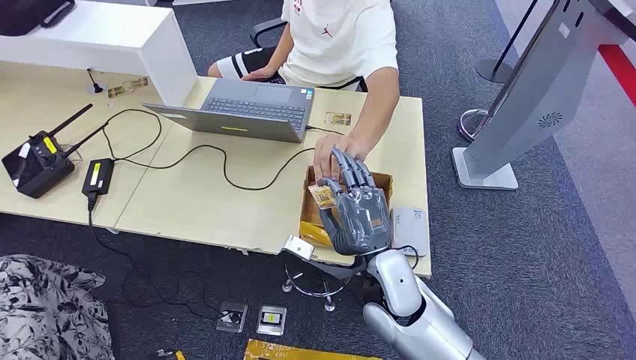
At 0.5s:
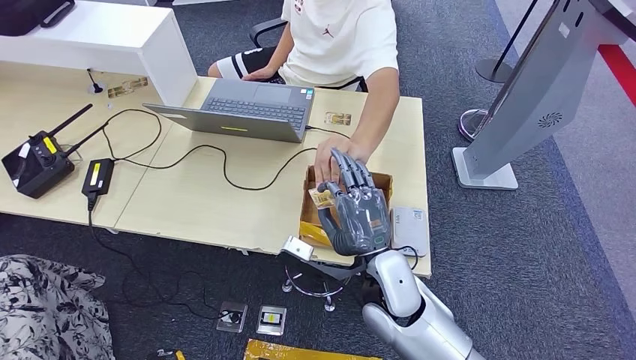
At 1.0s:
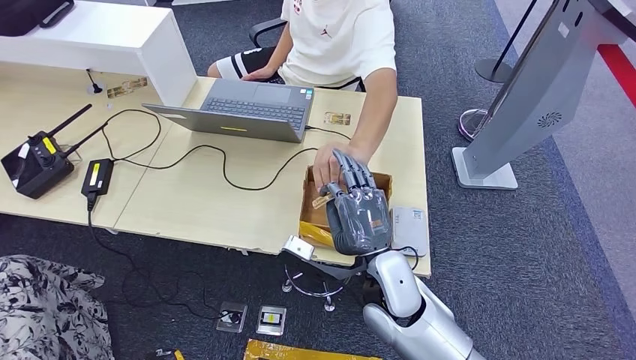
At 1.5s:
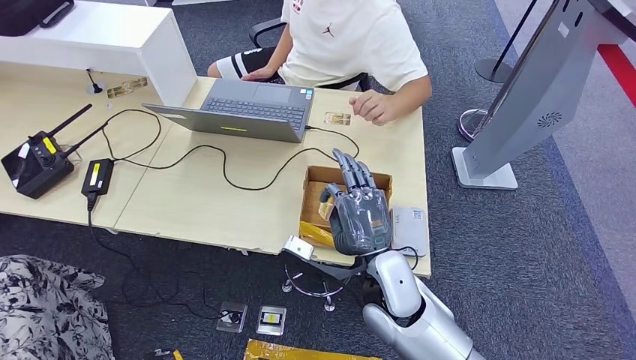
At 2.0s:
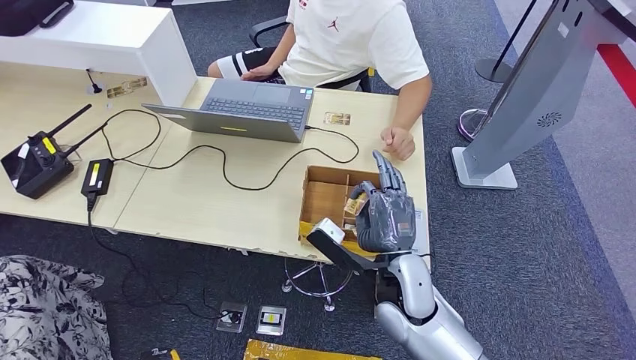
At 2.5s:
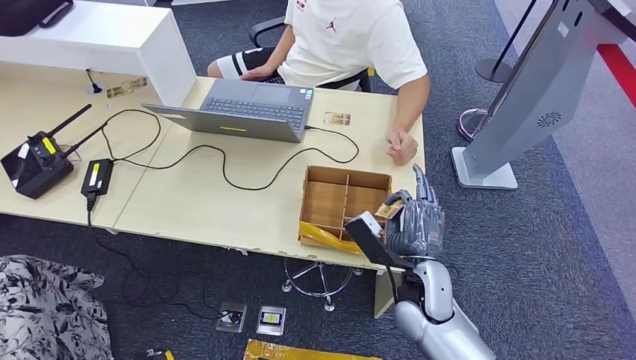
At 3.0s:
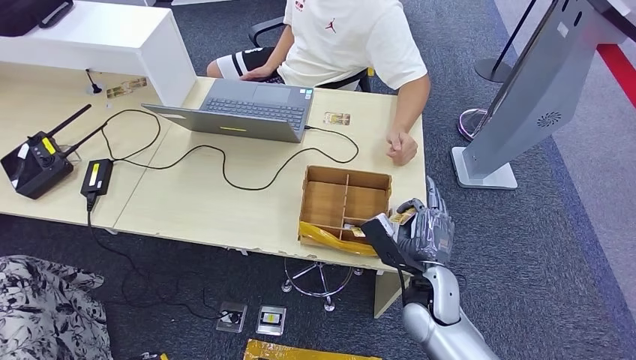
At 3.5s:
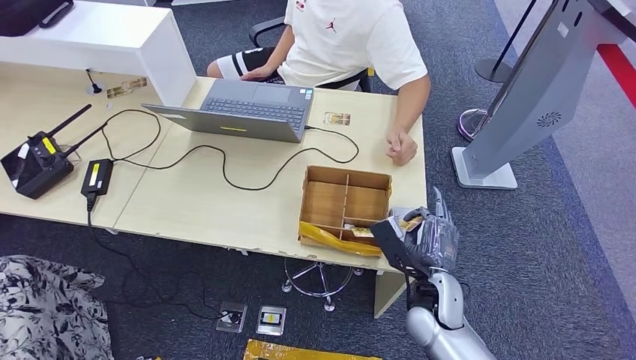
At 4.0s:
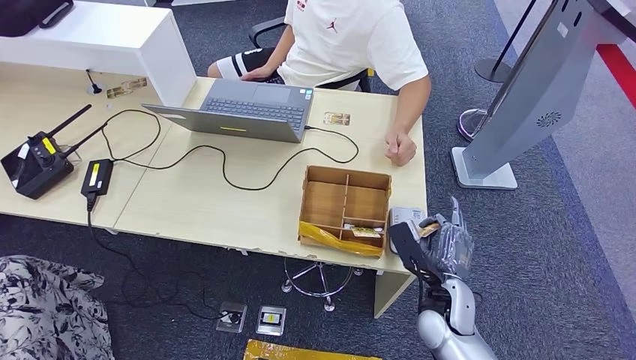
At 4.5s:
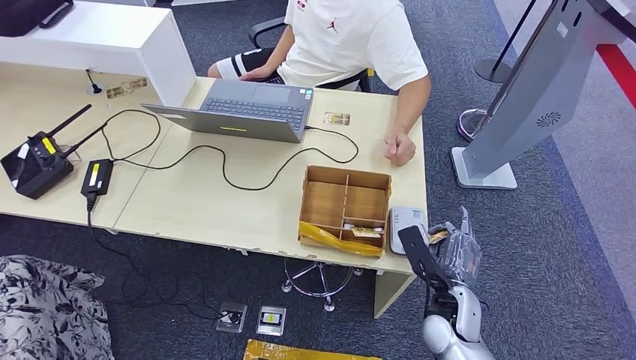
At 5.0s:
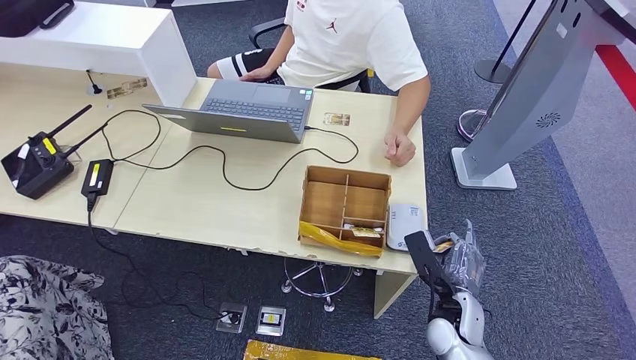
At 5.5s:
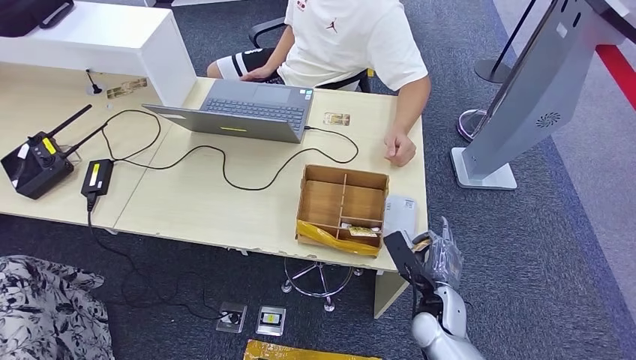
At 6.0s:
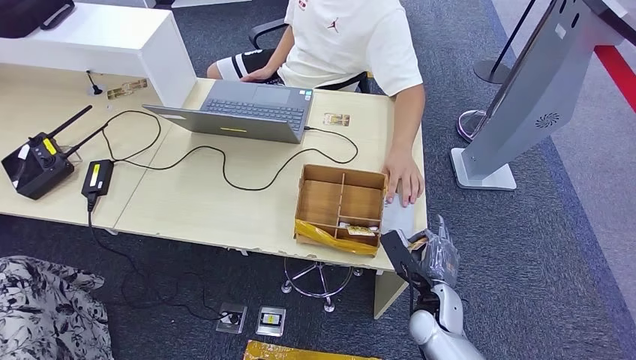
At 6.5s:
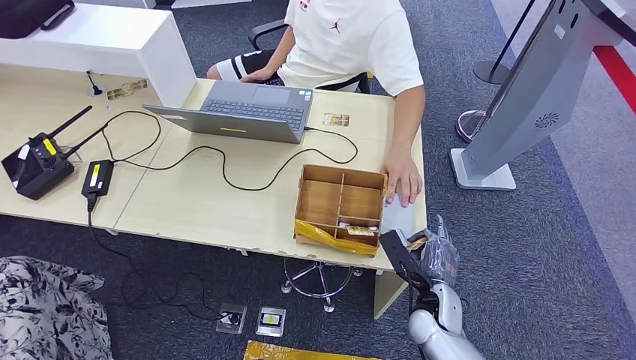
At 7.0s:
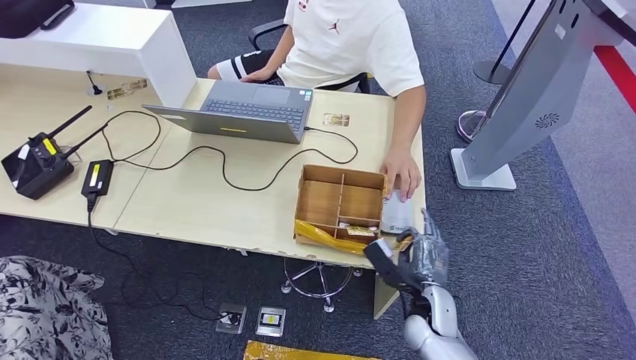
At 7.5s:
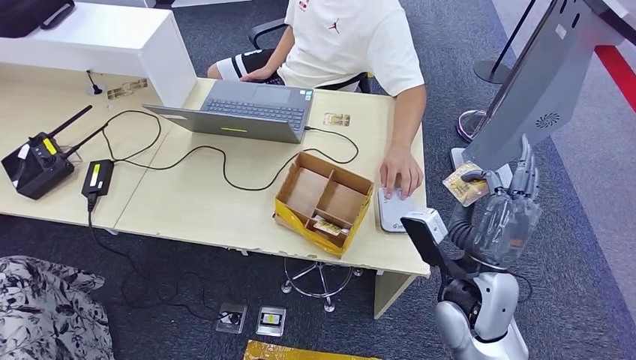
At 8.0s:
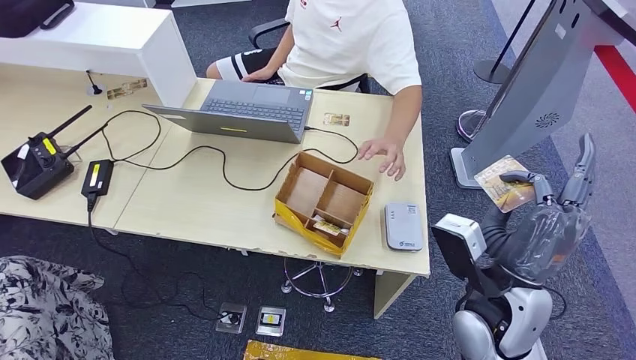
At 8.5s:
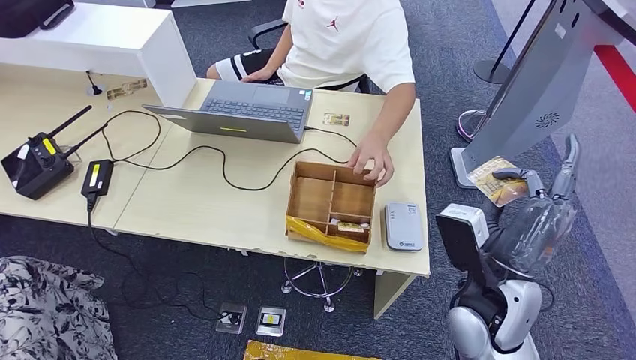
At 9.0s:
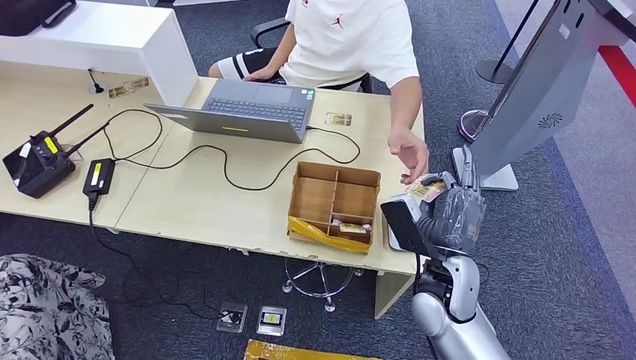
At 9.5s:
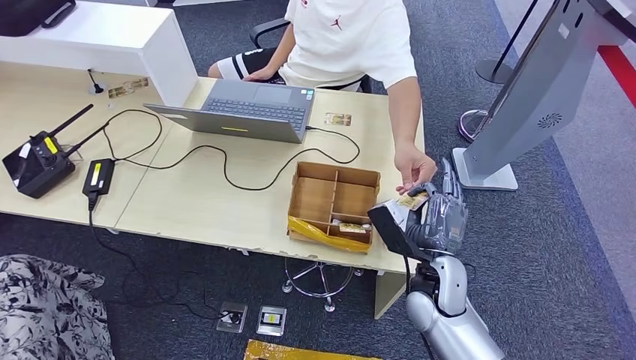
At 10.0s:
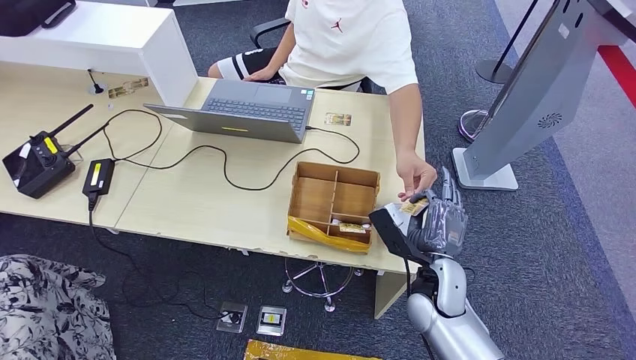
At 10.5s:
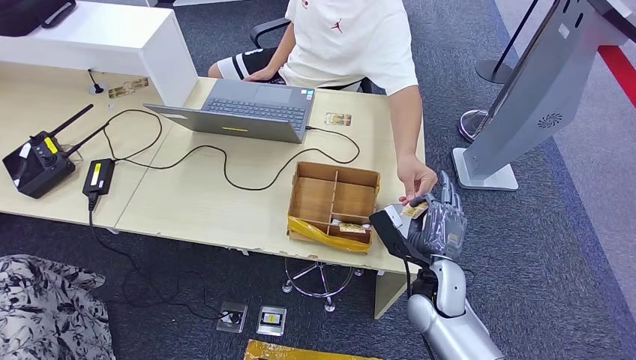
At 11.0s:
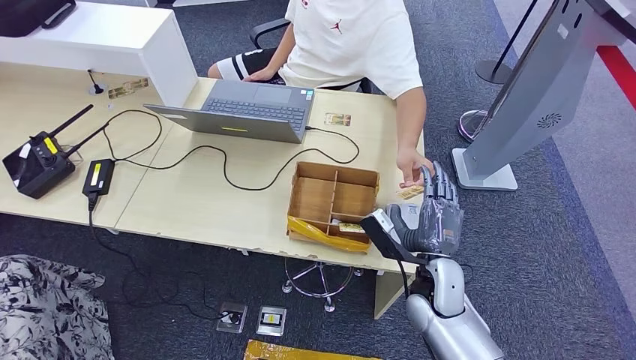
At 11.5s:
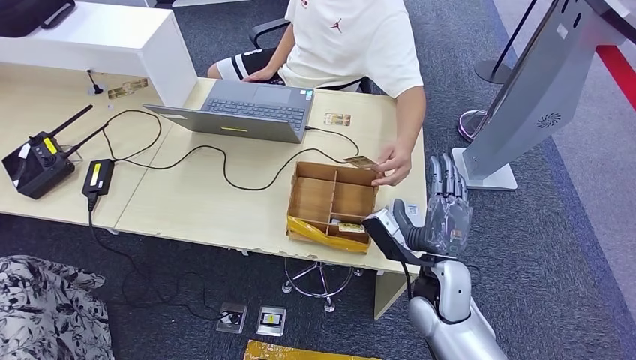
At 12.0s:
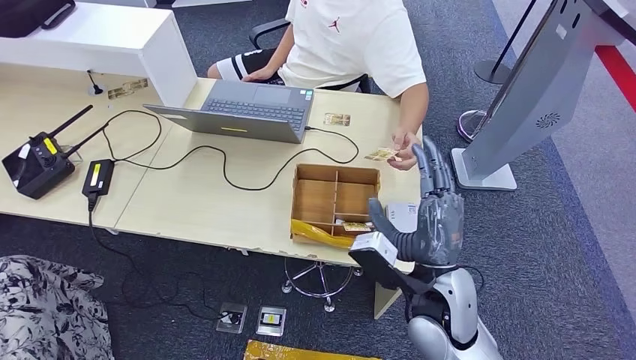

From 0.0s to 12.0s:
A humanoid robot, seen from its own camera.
Step, from 0.0s to 1.0s: Take the ID card from the person's hand.
Step, from 1.5s to 7.0s: Place the ID card on the card reader.
Step, from 7.5s to 11.5s: Hand the ID card to the person.
From 2.0s to 4.0s: The right hand travels to the right and downward by roughly 10 cm.
From 4.0s to 6.0s: The hands make only small movements.
From 6.0s to 8.0s: The right hand travels upward by about 20 cm.
From 8.0s to 10.0s: The right hand heads downward, covering about 10 cm.
From 10.0s to 12.0s: The right hand heads upward, covering about 10 cm.

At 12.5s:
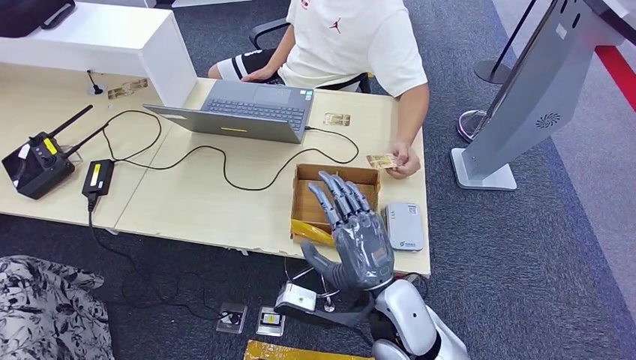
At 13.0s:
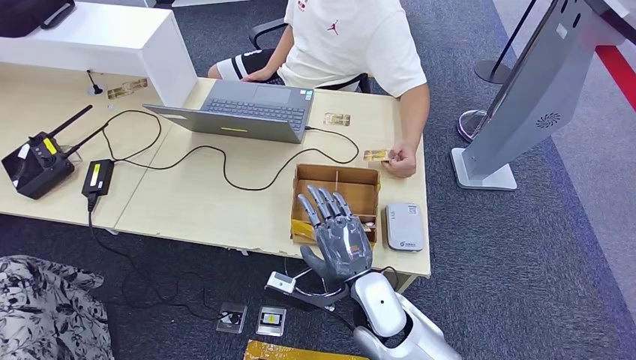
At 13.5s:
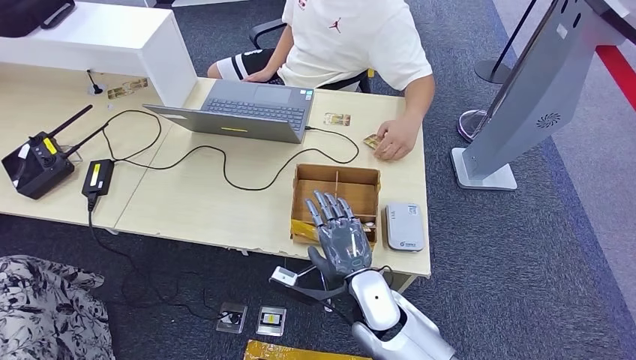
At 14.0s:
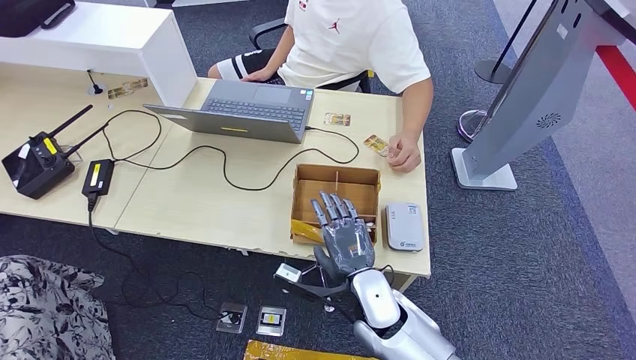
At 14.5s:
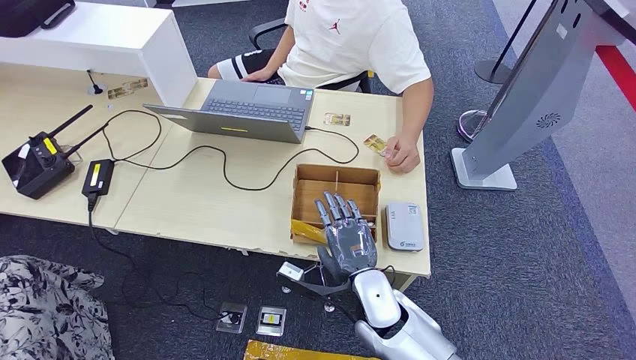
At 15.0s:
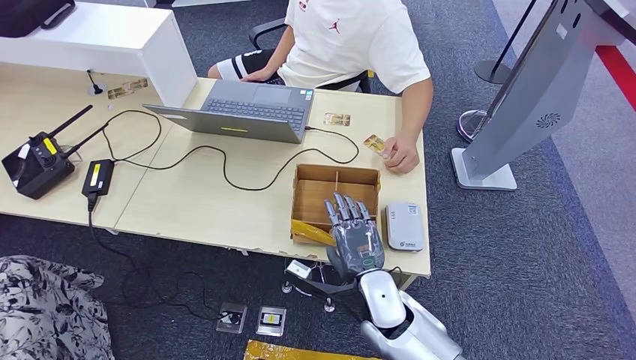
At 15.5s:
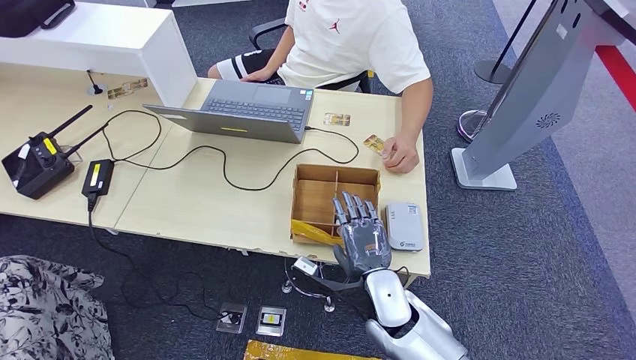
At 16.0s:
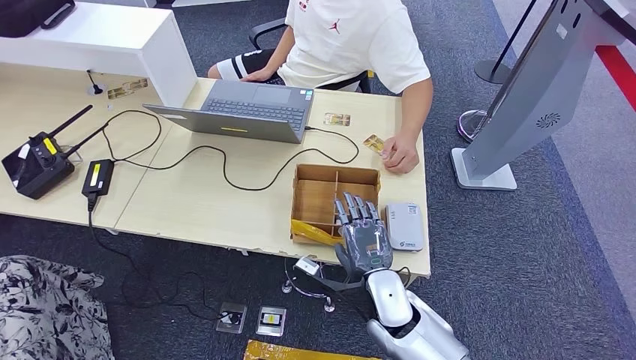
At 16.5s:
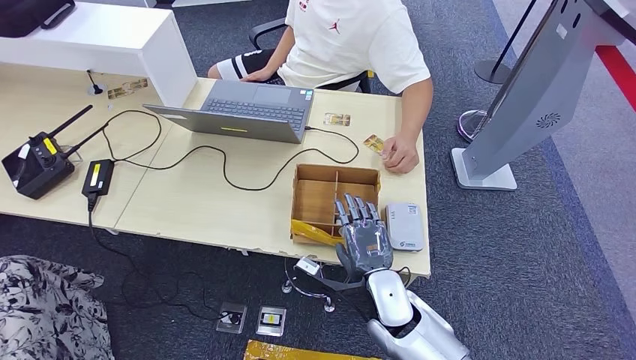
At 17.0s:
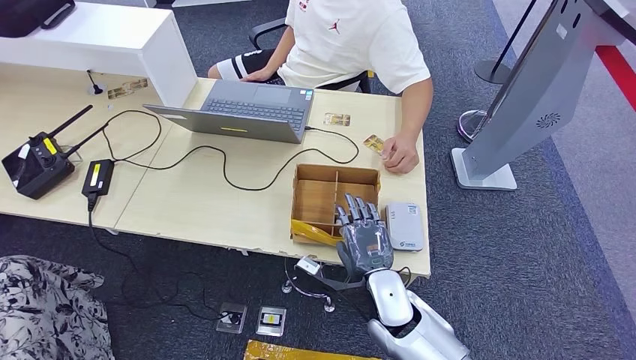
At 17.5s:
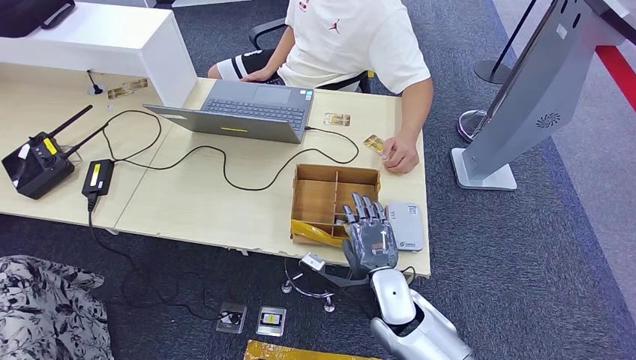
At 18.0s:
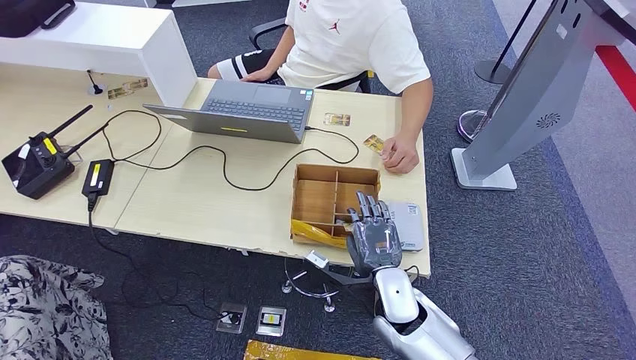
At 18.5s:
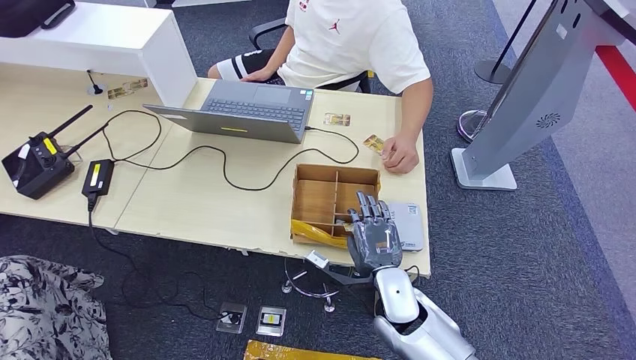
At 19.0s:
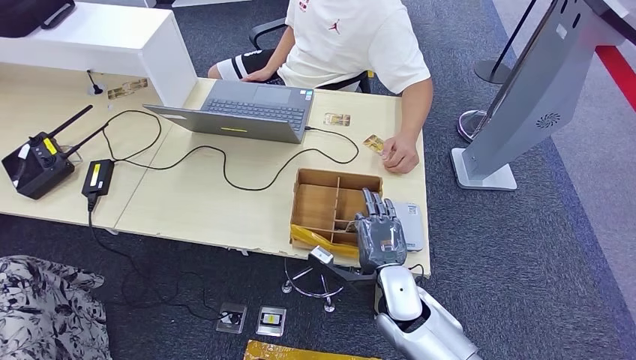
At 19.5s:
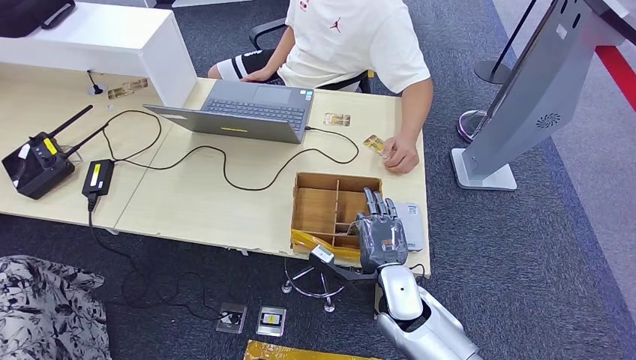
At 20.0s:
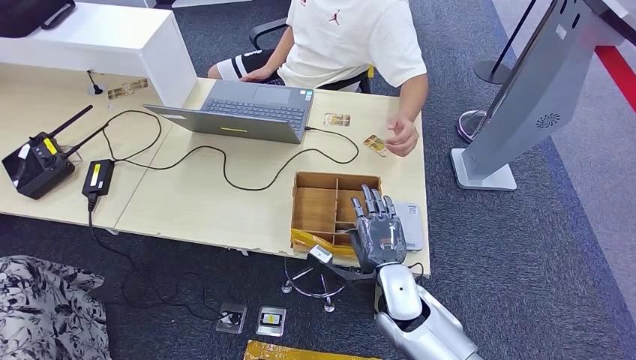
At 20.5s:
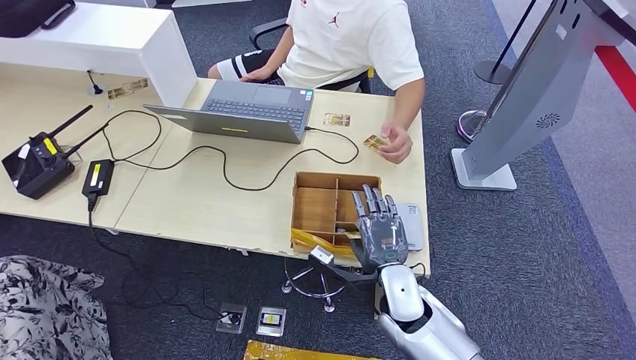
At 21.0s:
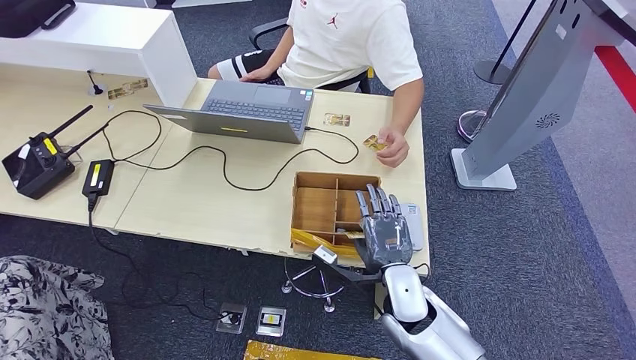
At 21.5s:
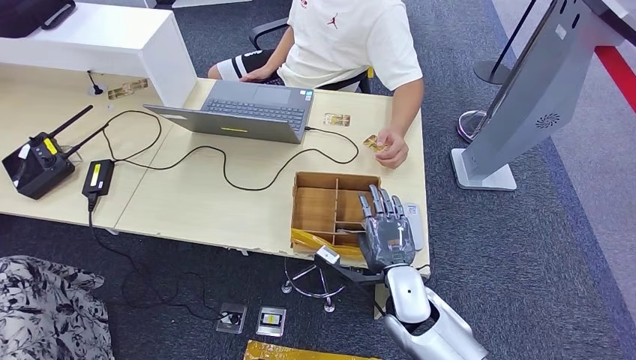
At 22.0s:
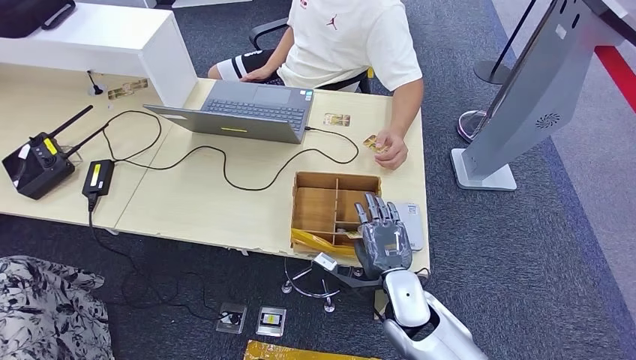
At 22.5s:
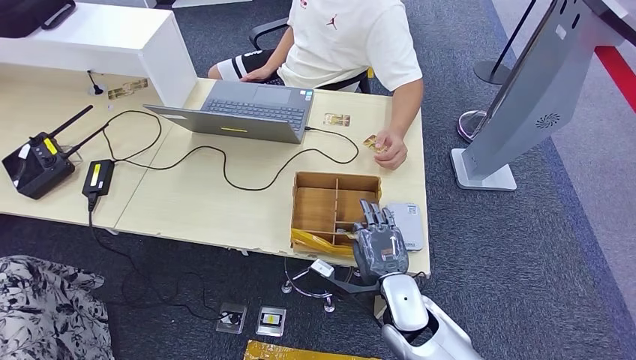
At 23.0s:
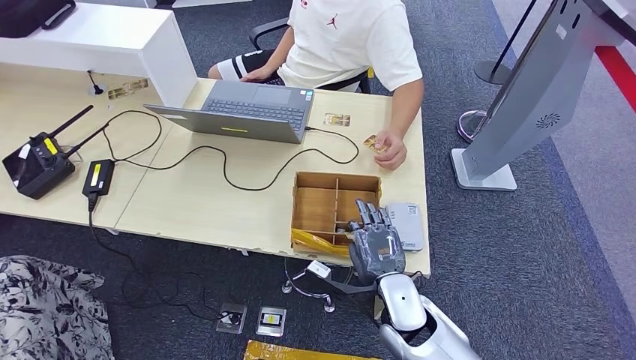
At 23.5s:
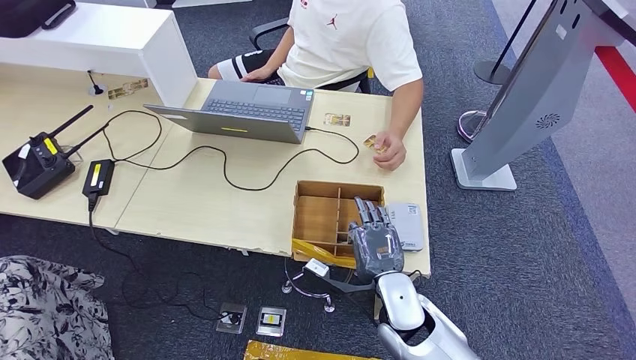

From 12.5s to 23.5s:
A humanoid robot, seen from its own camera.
From 12.5s to 14.5s: The right hand travels downward by approximately 10 cm.
From 14.5s to 16.0s: The hands make only small movements.
From 16.0s to 18.0s: Both hands stay put.
From 18.0s to 20.0s: The two hands keep their place.
From 20.0s to 21.5s: Both hands stay put.
From 21.5s to 23.5s: The hands stay close to where they were, moving slightly.
